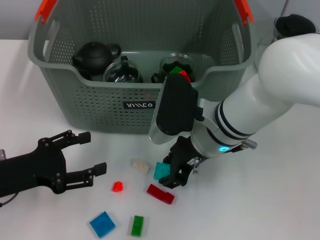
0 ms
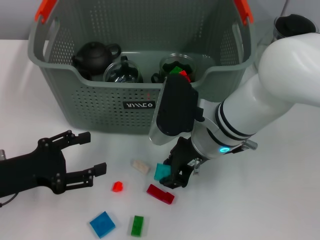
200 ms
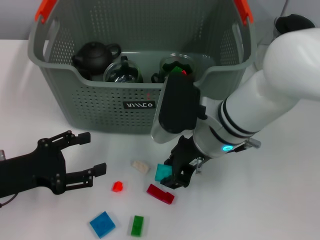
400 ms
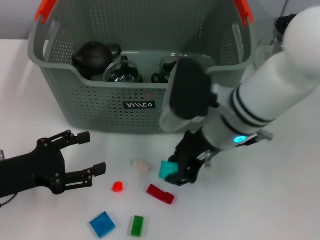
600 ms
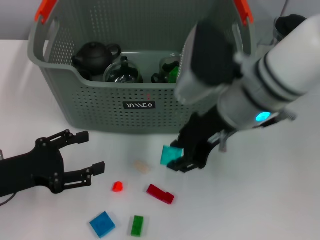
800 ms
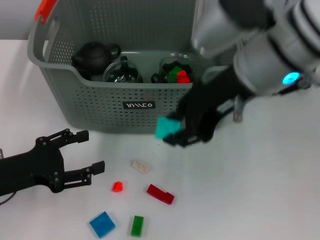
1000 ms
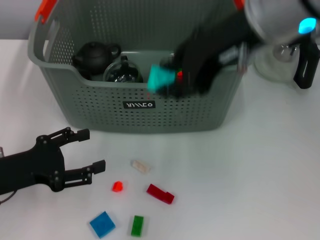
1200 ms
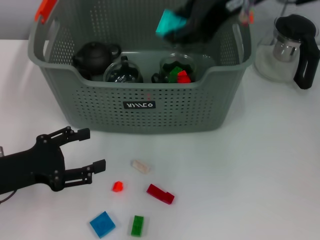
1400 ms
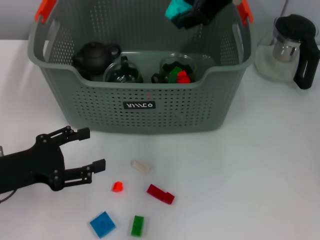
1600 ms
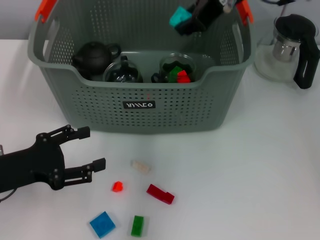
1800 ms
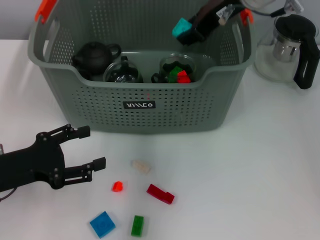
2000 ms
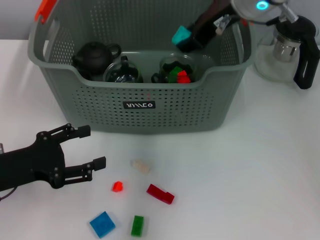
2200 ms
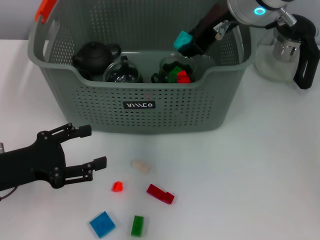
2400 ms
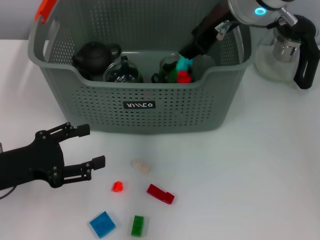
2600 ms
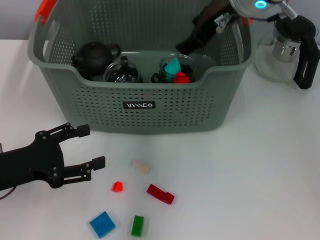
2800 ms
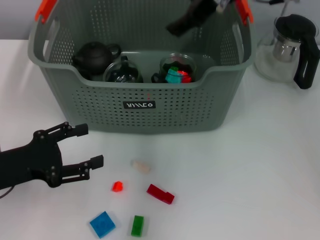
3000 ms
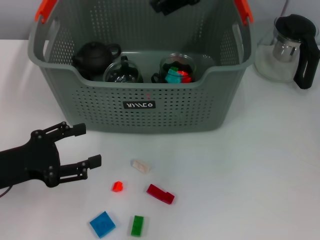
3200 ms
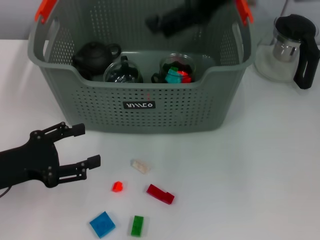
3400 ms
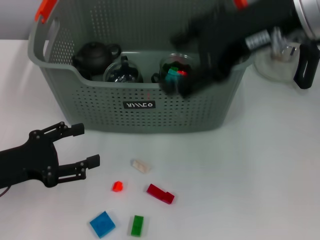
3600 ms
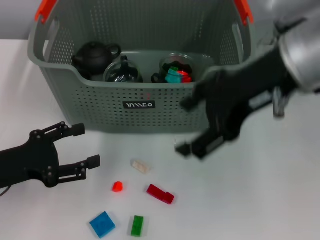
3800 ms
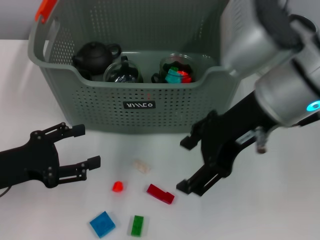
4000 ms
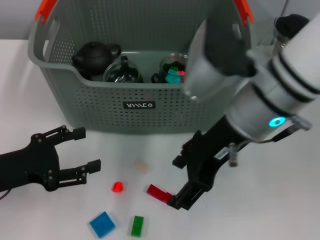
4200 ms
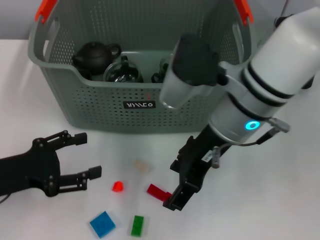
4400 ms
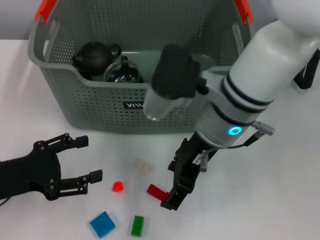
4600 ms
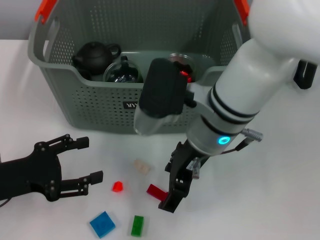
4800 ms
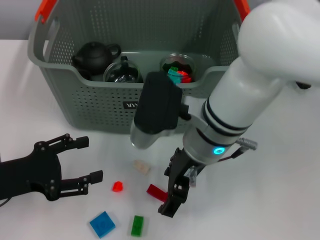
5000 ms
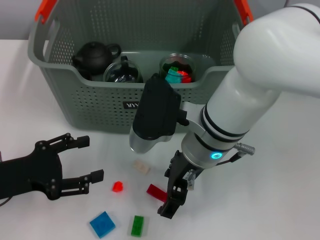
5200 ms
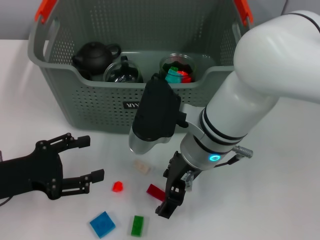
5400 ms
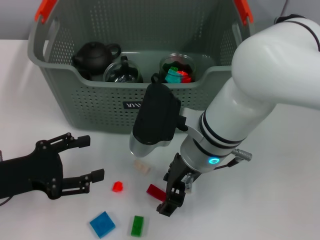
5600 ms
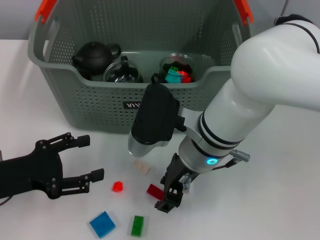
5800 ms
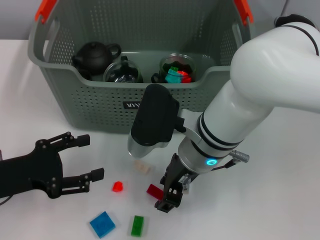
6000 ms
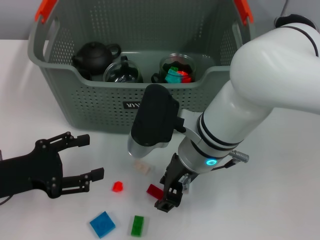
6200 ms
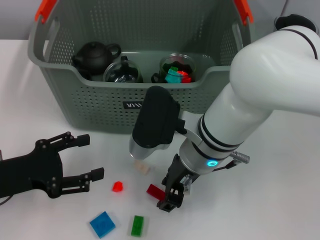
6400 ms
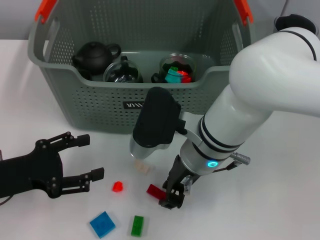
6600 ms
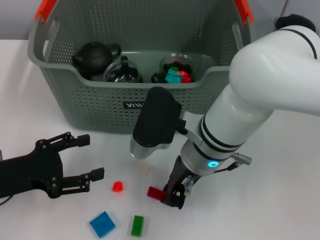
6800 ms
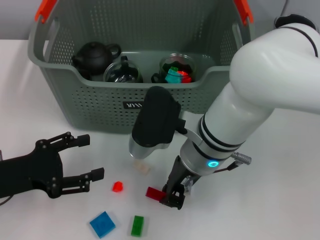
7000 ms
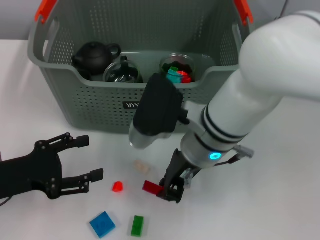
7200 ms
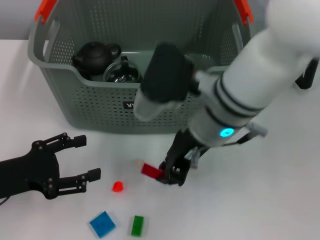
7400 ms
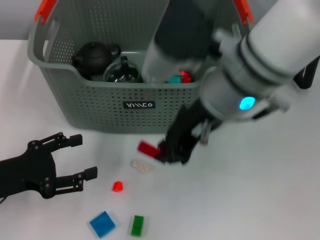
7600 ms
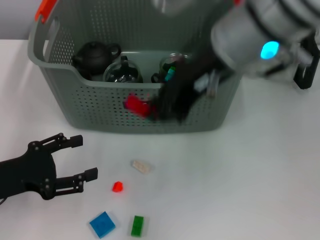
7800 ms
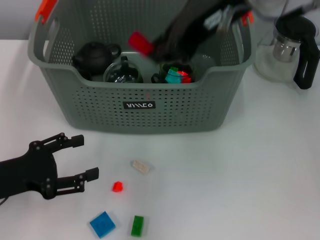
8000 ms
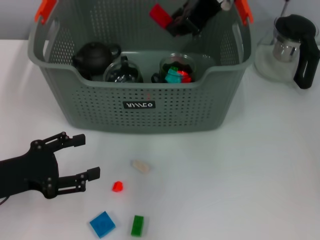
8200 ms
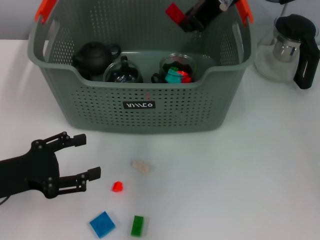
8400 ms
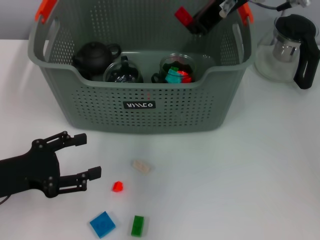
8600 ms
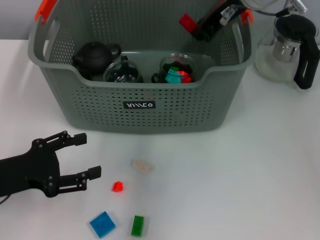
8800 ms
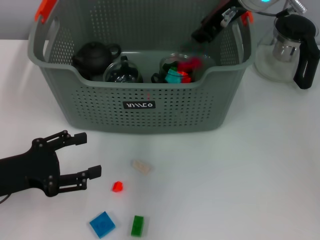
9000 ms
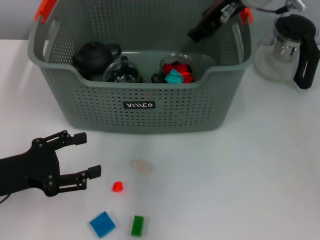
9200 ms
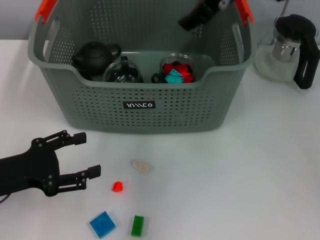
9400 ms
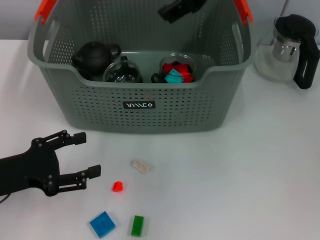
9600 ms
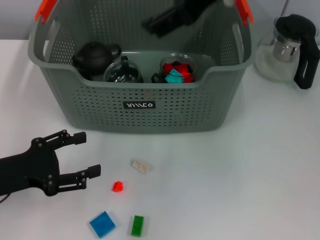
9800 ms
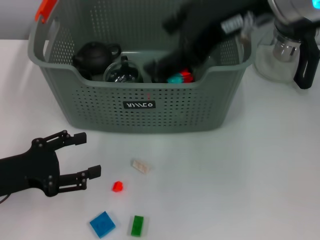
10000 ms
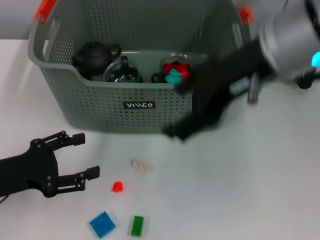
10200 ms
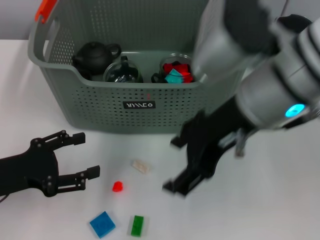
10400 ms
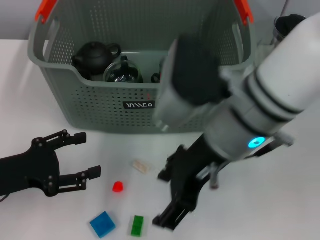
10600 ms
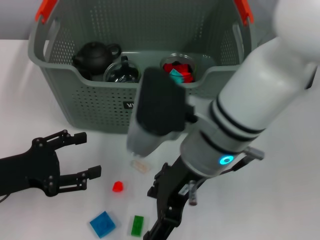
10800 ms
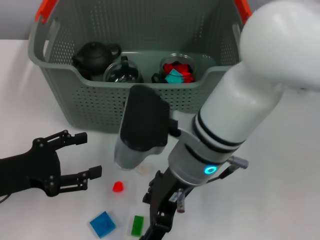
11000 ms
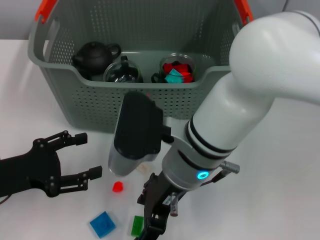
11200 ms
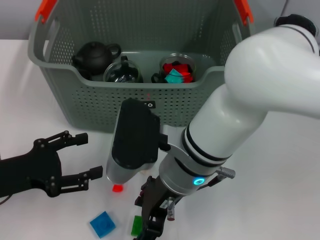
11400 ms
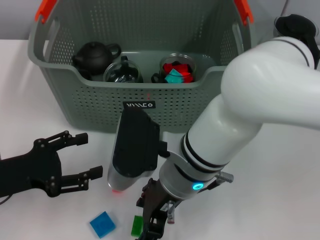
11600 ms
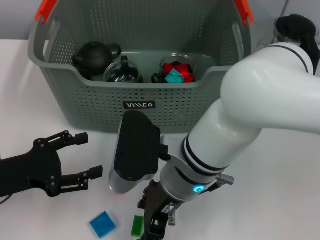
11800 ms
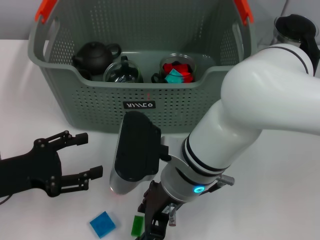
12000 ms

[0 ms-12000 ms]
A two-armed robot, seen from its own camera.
Task of the whole recording: pick up the teacup on the table and place it into the storage bin, pick up the block on the table and place it into the storage bin.
Step, 200 ms to 2400 ms: Place the light blue block in the storage box with right gripper.
Step, 2800 ms to 6600 ms: Grasp the red block with right gripper.
Step, 7000 ms to 9000 ms: Place the red block in the storage box with right gripper.
0 ms to 1600 ms: The right gripper goes some 20 cm upward.
1600 ms to 3000 ms: The right gripper opens its fingers.
3000 ms to 4400 ms: The right gripper travels backward and downward by approximately 15 cm.
4400 ms to 6000 ms: The right gripper shifts about 5 cm downward.
6000 ms to 7600 ms: The right gripper moves upward, approximately 10 cm, and closes.
7600 ms to 9000 ms: The right gripper is displaced forward by some 10 cm.
9000 ms to 10400 ms: The right gripper moves backward, some 15 cm, and opens its fingers.
10400 ms to 12000 ms: The right gripper moves downward and to the left, approximately 15 cm.

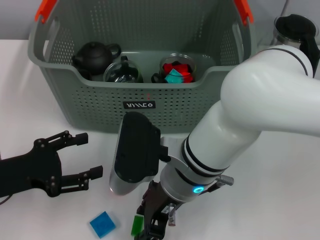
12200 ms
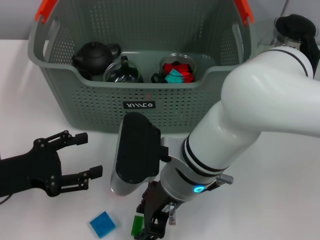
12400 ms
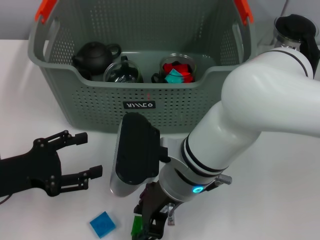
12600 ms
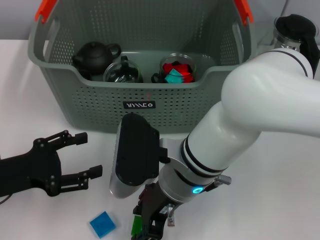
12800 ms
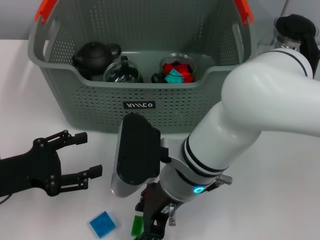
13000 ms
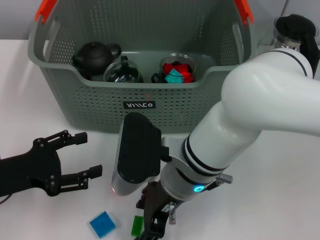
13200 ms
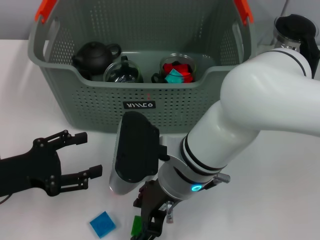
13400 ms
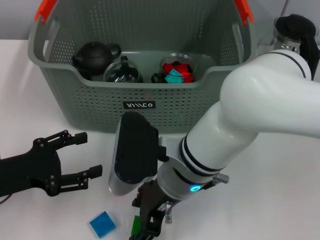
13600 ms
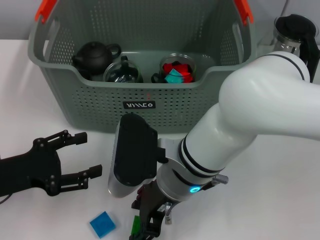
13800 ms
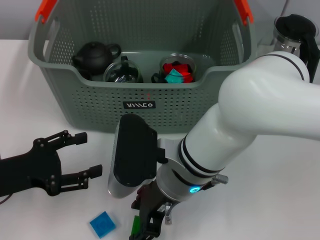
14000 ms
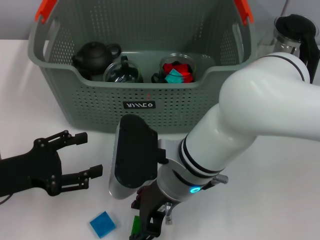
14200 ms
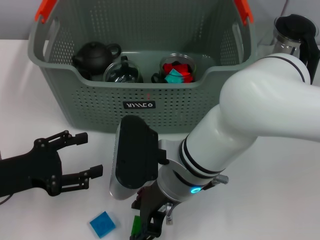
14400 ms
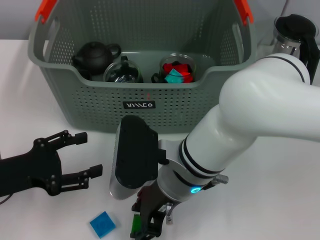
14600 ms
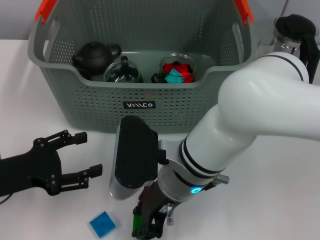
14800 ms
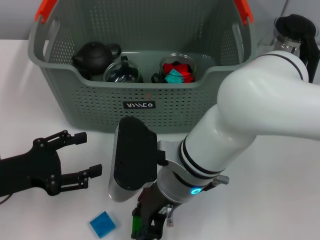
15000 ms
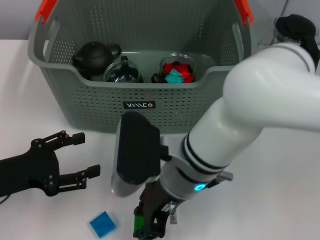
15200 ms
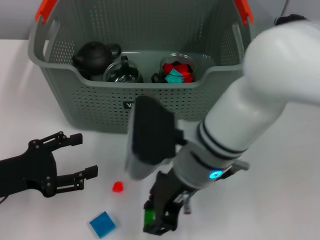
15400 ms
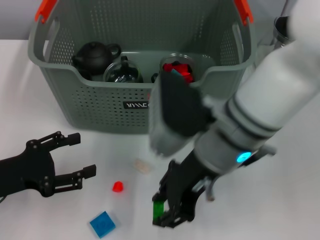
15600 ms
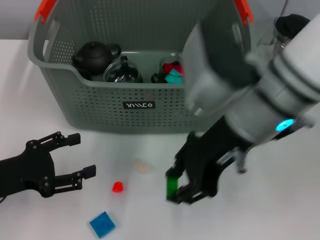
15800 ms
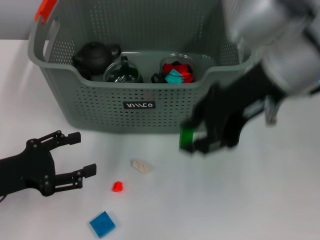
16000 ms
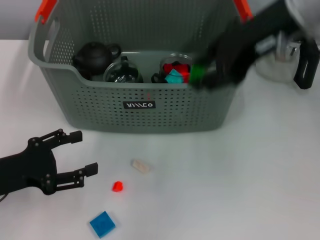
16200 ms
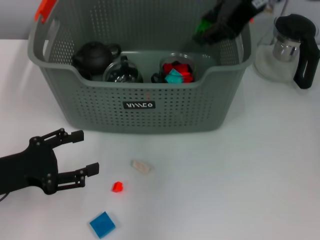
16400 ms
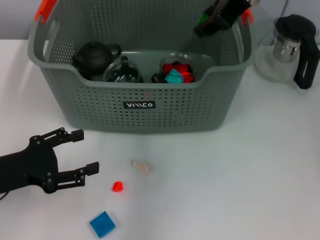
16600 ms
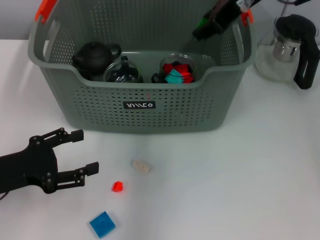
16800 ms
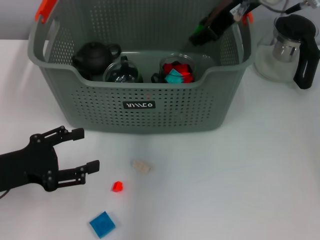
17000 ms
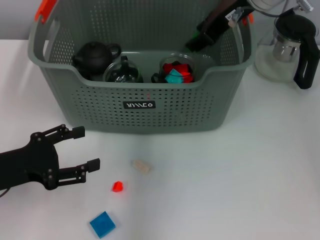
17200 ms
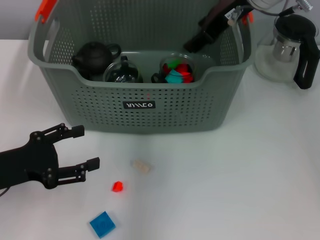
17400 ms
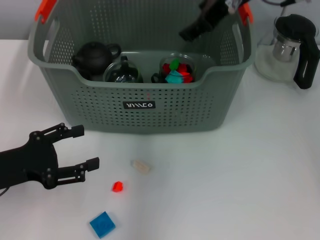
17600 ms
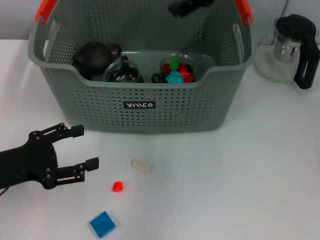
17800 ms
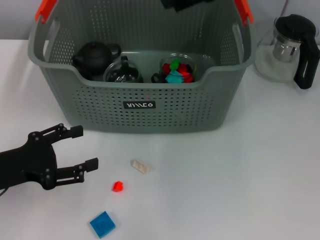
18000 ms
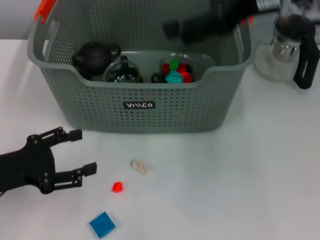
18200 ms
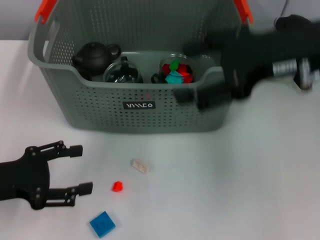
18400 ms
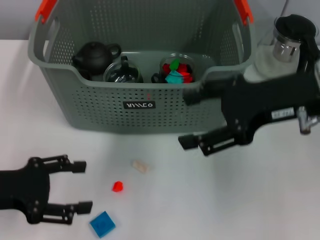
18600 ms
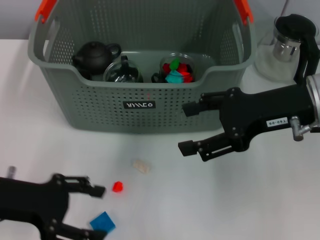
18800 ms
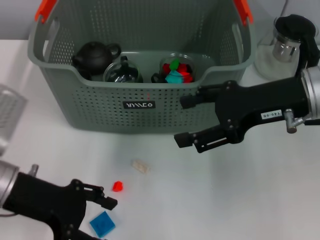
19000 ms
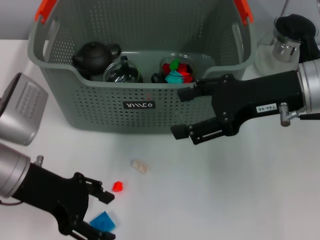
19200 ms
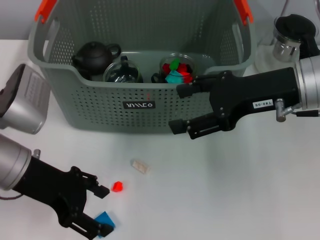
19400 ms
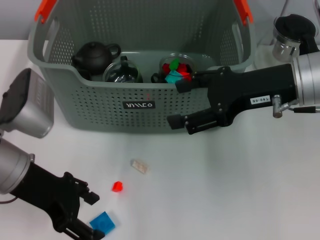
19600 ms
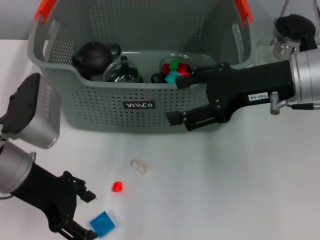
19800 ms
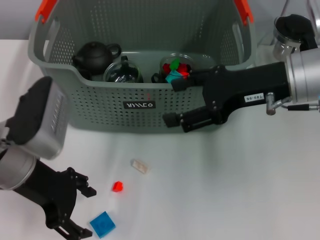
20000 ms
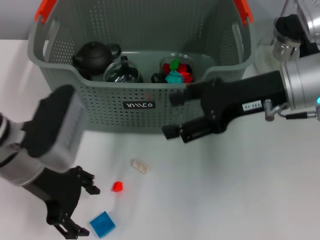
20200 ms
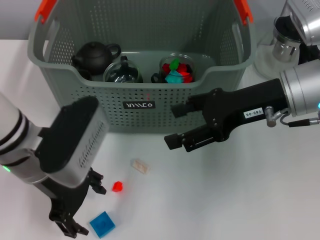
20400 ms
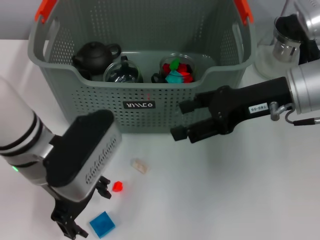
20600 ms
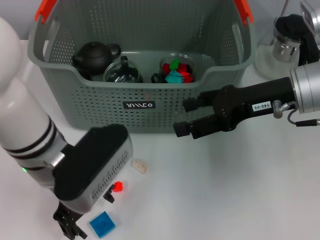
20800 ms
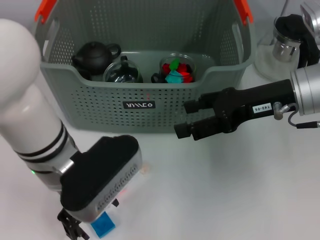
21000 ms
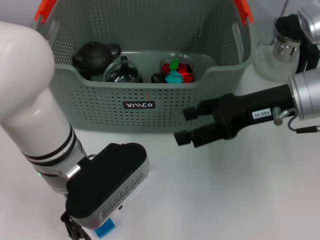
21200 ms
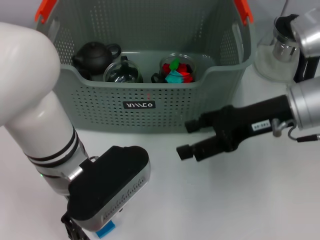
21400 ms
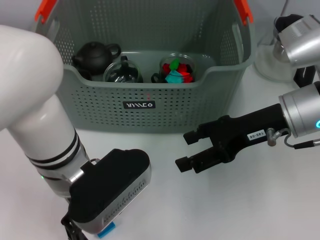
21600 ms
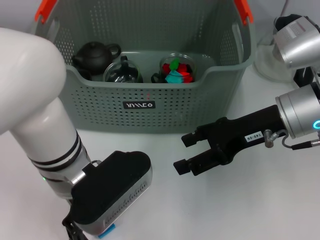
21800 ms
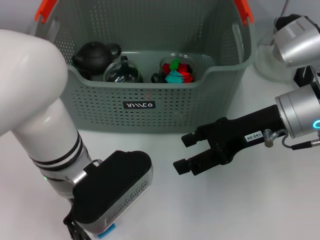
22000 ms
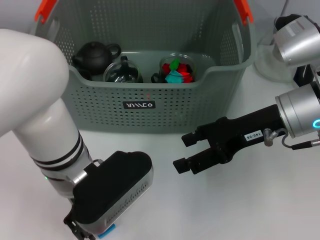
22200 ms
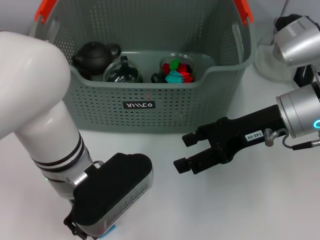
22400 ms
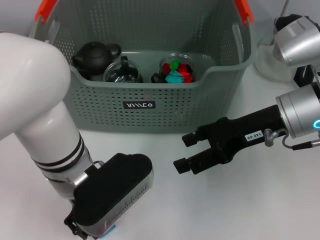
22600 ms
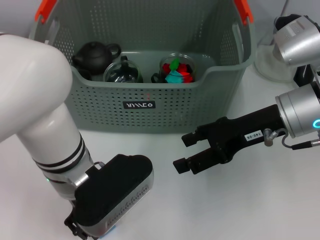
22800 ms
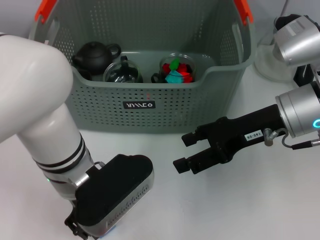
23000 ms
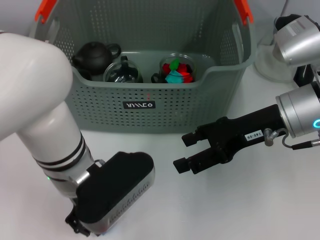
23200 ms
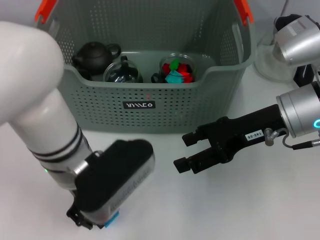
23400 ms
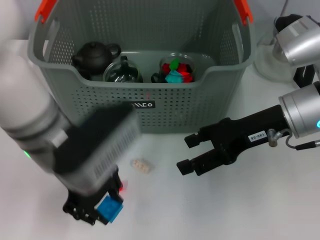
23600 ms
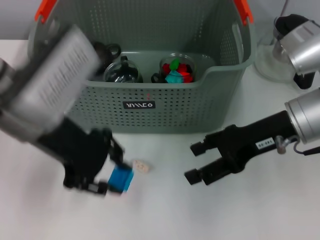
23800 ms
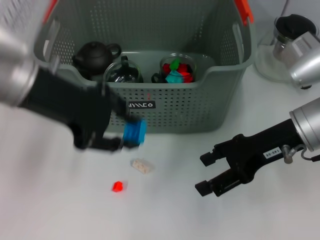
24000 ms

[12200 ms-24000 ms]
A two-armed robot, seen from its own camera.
Task of the whole recording: pick up the teacup on the table and place it into the storage bin, pick up the block on the table and place it into the storage bin.
Step, 12200 ms to 14800 ms: Grasp the green block with right gripper.
Step, 15000 ms to 17400 ms: Place the green block in the storage box with right gripper.
Step, 17600 ms to 23000 ms: Grasp the dark blue block with left gripper.
12200 ms to 13600 ms: Both grippers stay about where they are.
13600 ms to 15200 ms: The right gripper closes its fingers.
15200 ms to 16600 ms: The right gripper heads upward, forward and to the right, covering roughly 25 cm.
16600 ms to 18200 ms: The right gripper shifts about 5 cm backward, and opens up.
18200 ms to 19600 ms: The left gripper heads to the right and upward, covering some 10 cm, while the right gripper moves downward, roughly 10 cm.
19600 ms to 21000 ms: The left gripper goes about 10 cm to the right.
22600 ms to 24000 ms: The left gripper heads upward and to the left, covering some 15 cm.
